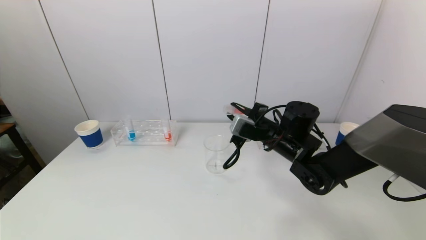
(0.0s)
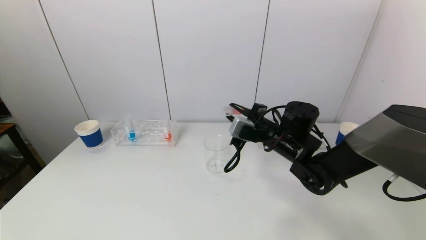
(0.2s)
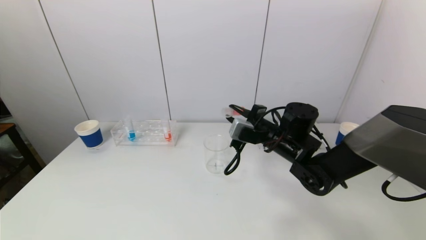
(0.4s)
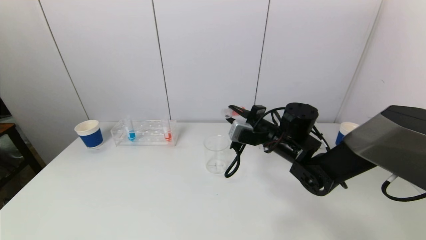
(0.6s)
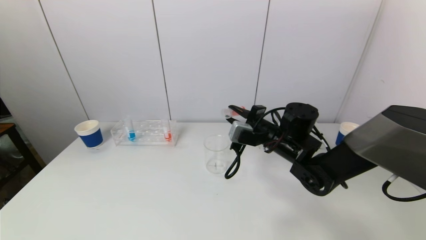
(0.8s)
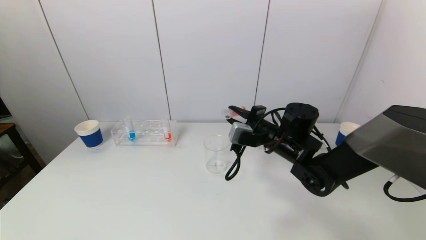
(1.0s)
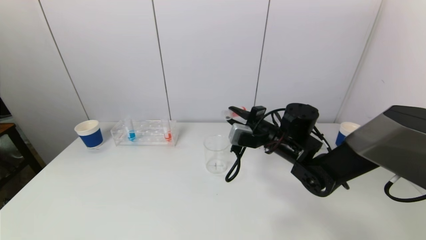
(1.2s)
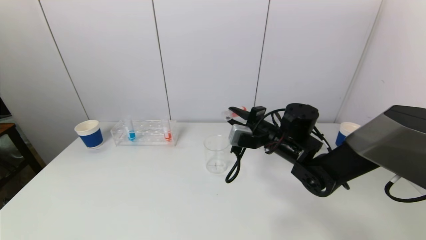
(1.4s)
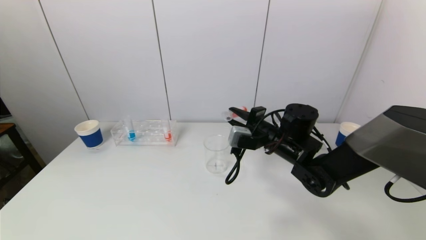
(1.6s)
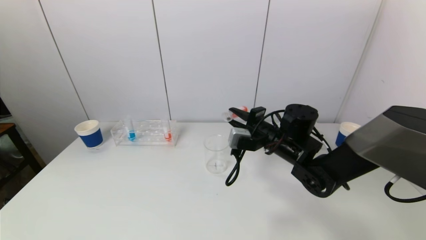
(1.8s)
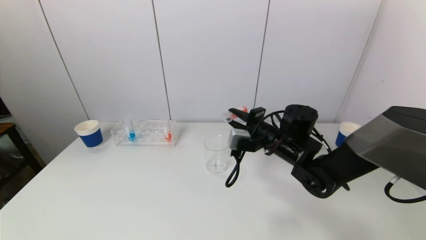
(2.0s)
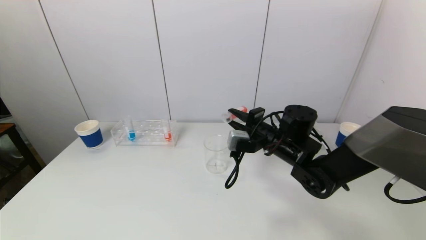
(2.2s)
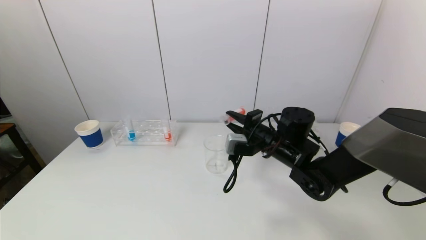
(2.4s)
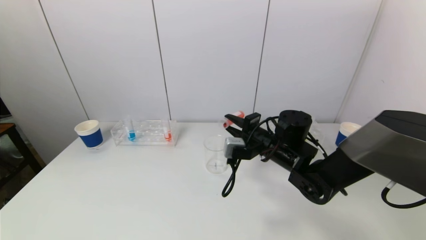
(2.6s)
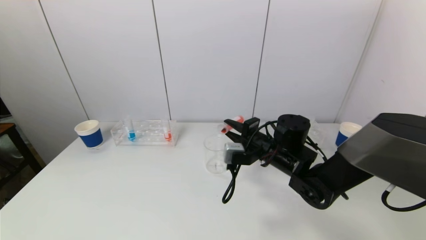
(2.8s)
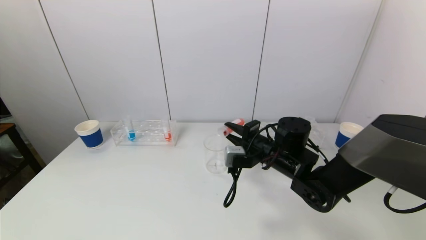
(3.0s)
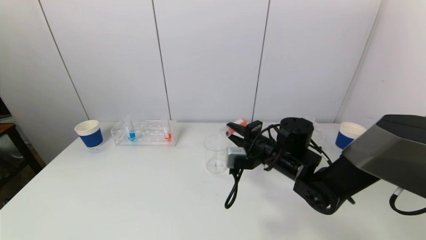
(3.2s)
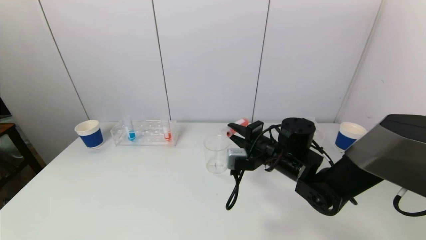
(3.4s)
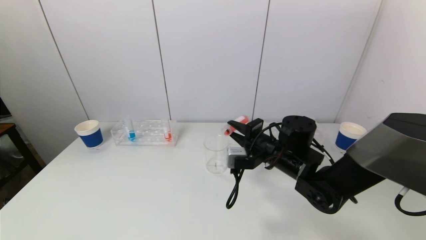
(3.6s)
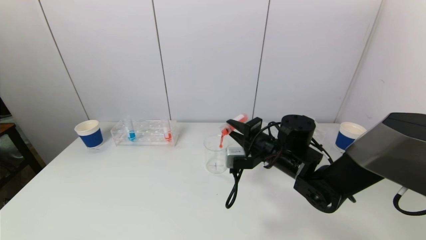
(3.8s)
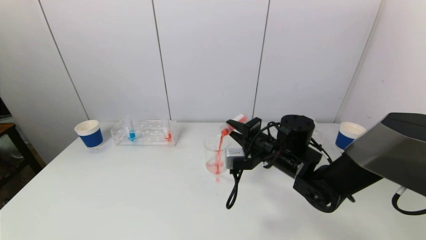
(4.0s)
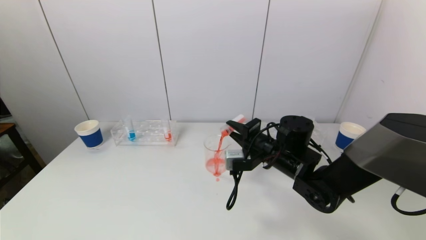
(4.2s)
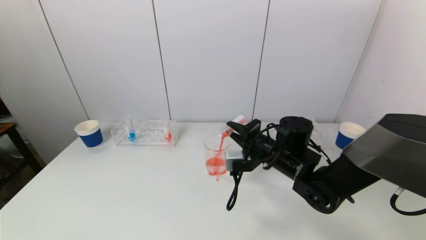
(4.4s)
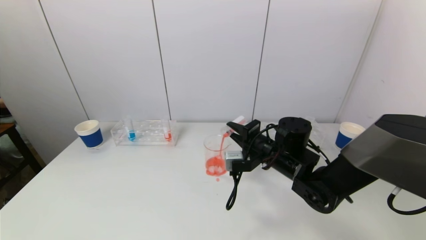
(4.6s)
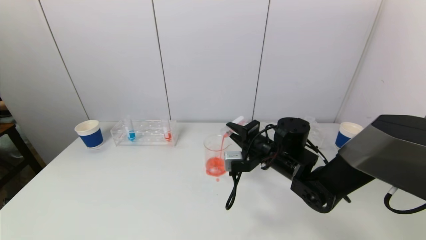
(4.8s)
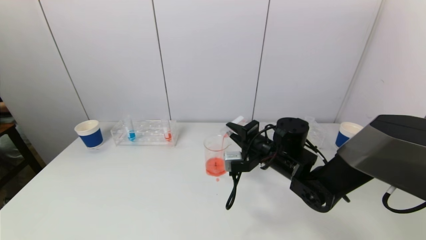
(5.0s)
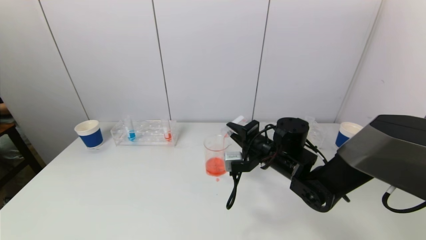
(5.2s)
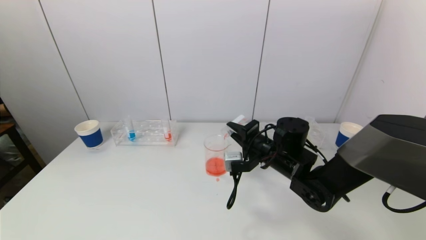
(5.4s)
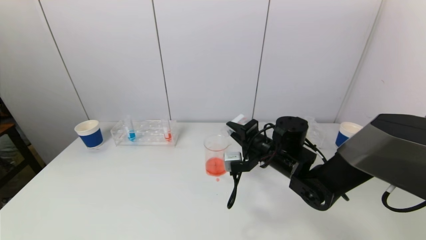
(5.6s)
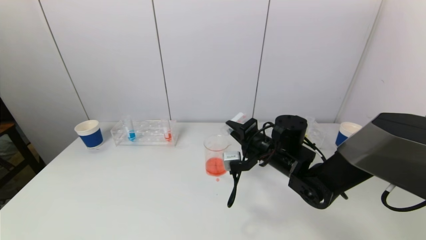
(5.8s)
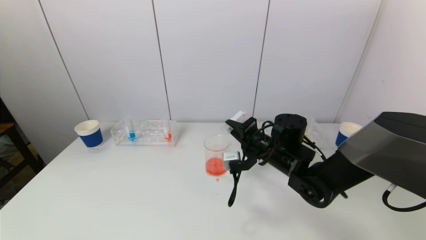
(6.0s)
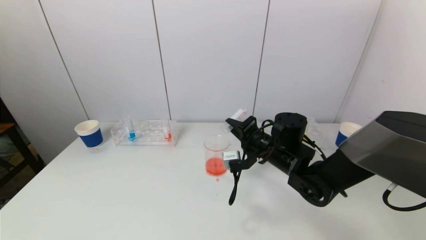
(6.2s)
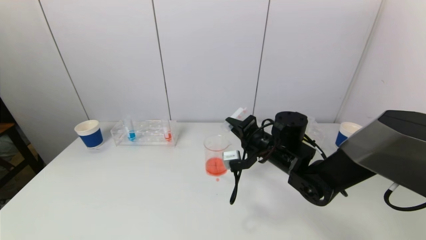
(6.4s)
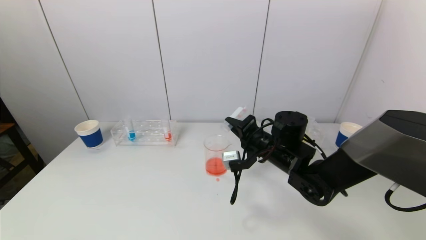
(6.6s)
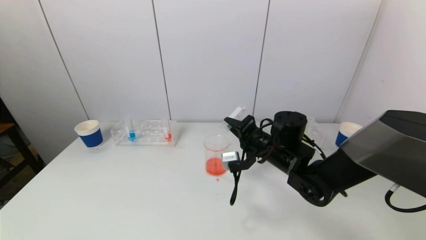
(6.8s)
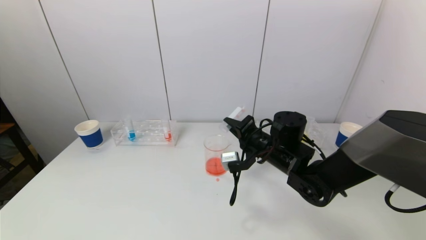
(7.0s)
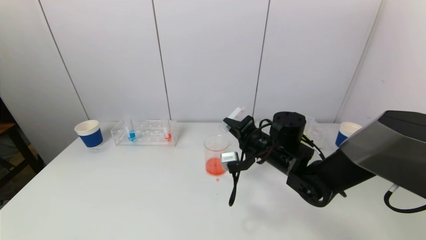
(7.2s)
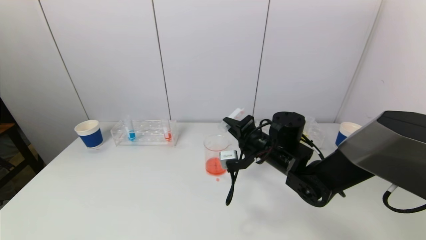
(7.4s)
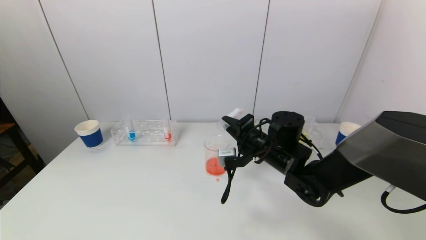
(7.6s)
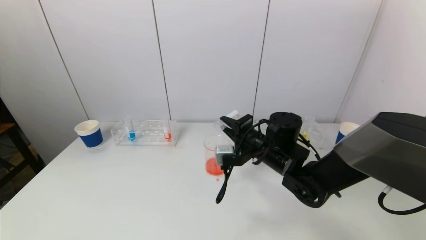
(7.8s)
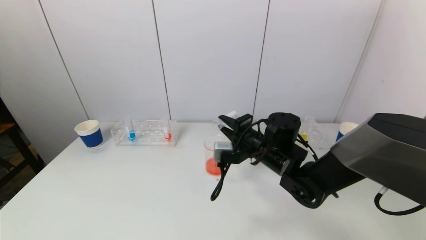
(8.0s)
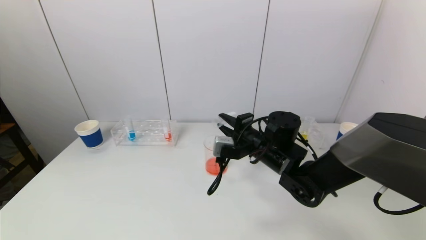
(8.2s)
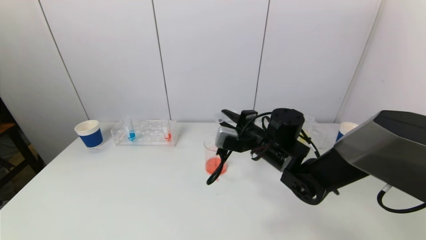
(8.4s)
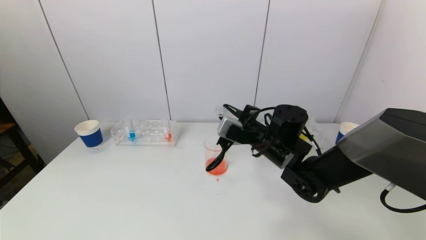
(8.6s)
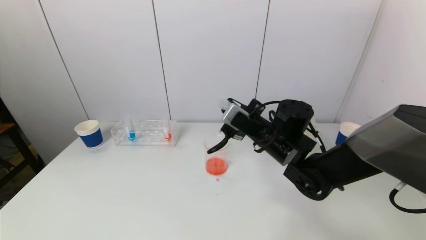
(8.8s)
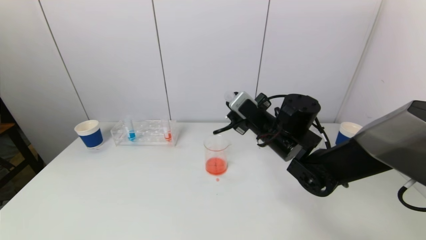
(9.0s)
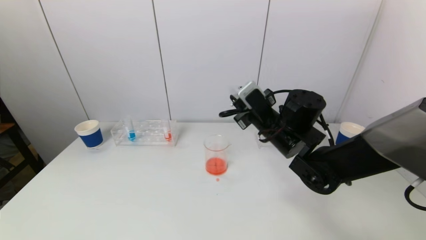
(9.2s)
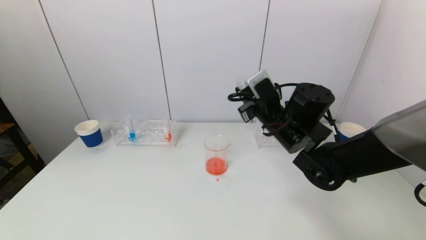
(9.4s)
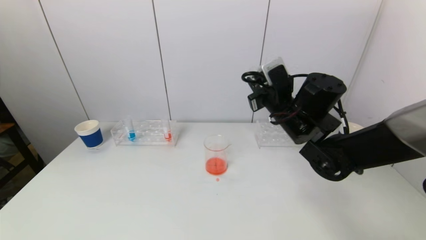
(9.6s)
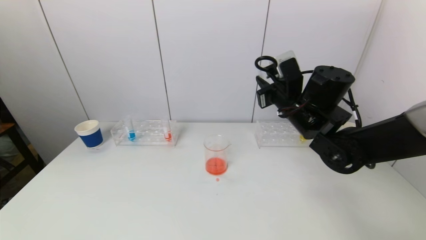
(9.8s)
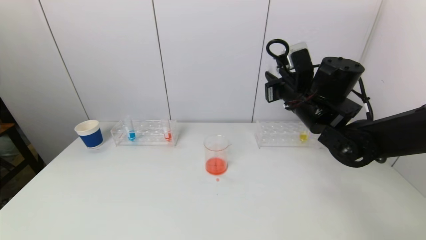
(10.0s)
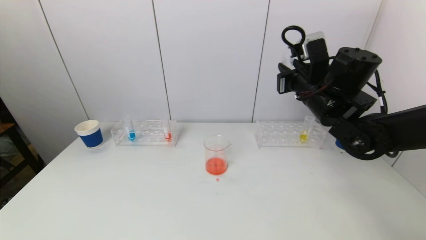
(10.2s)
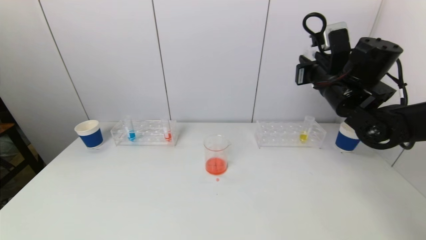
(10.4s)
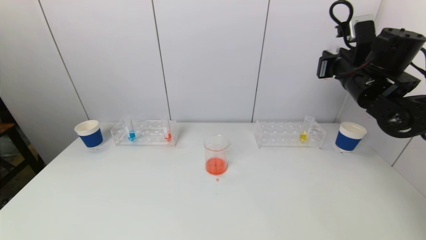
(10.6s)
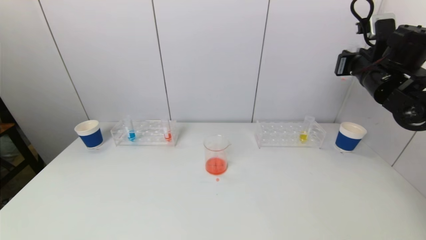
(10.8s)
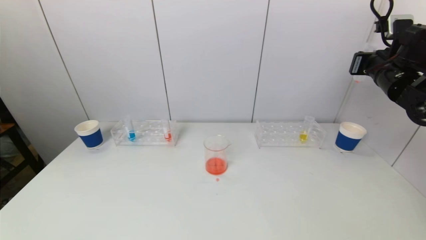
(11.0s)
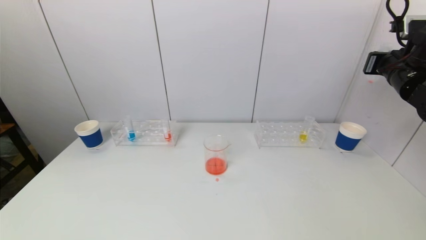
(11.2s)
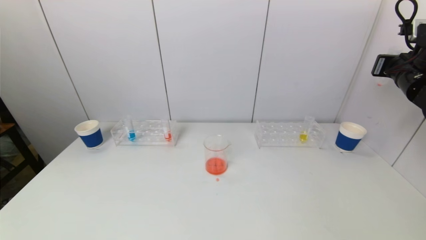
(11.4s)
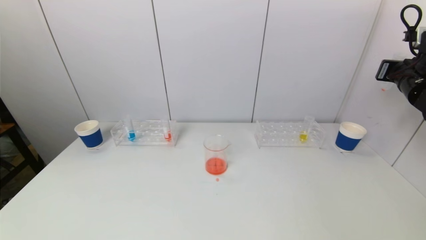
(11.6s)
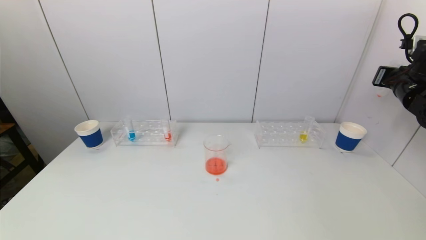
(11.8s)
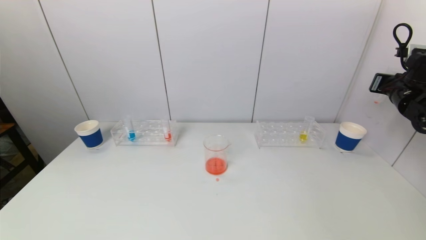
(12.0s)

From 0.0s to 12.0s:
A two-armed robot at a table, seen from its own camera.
Task of the whole recording: pick up a test tube with pigment on left test tube rack and a test tube with pigment on right test tube rack by grippers and pour them into the beaker.
Step, from 0.0s to 7.6s: Pour the red reagent into the graduated cylinder with the right gripper.
From 0.0s to 3.0s: The grippers make only small movements.
From 3.0s to 4.4s: The grippers stay close to where they were, moving slightly.
From 4.4s to 7.6s: The grippers move only a little.
From 9.0s to 10.4s: The right gripper travels to the right and upward by some 15 cm.
From 10.4s to 12.0s: The right gripper is displaced to the right by about 20 cm.

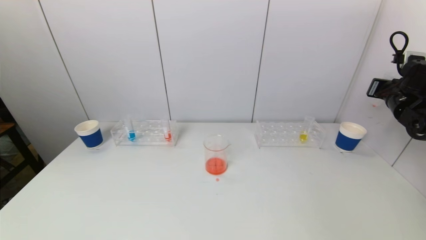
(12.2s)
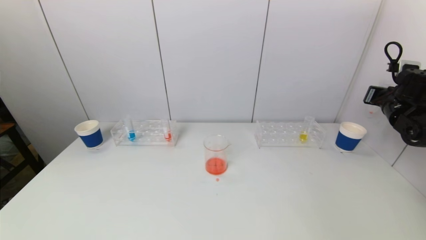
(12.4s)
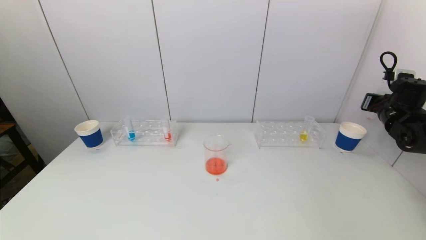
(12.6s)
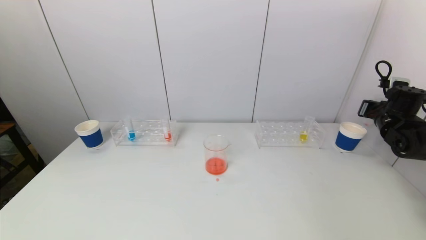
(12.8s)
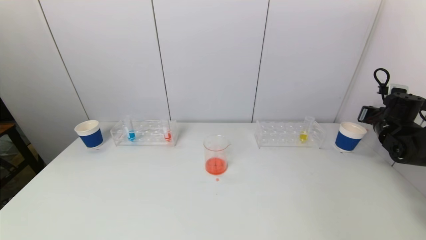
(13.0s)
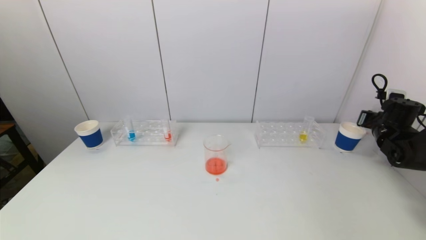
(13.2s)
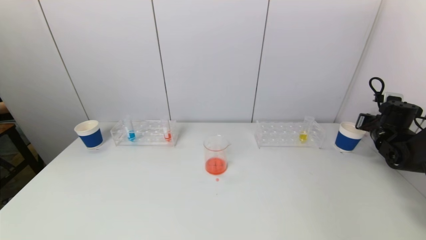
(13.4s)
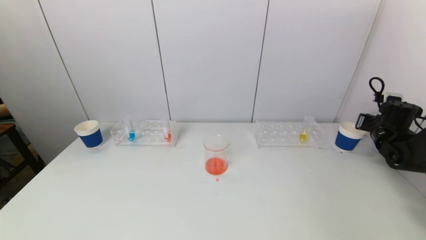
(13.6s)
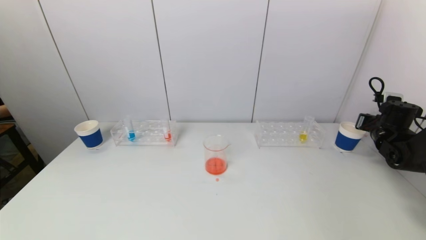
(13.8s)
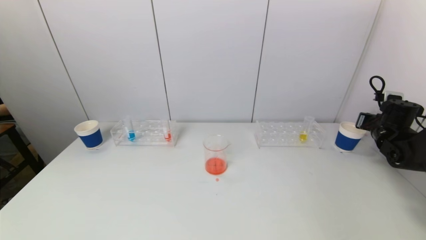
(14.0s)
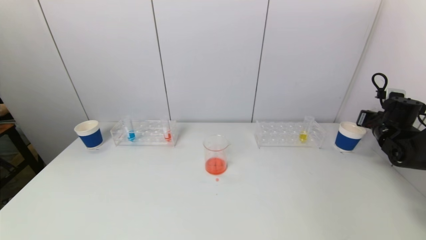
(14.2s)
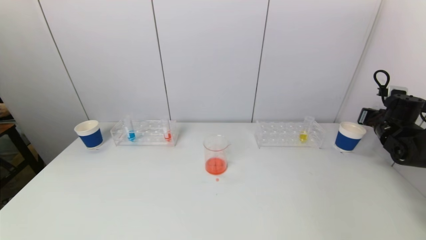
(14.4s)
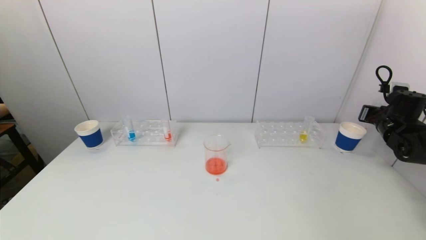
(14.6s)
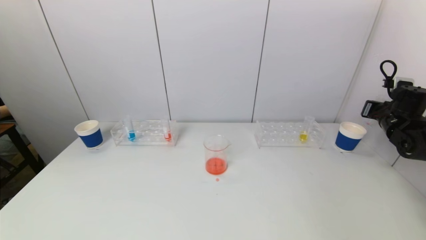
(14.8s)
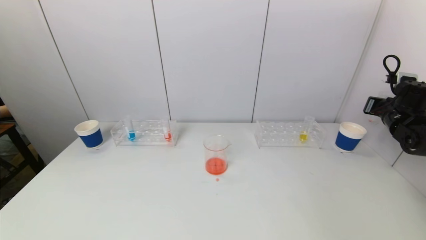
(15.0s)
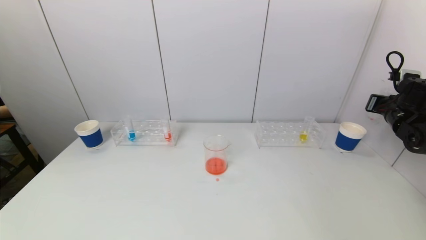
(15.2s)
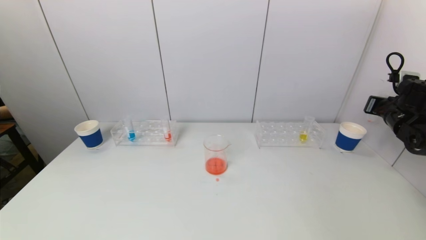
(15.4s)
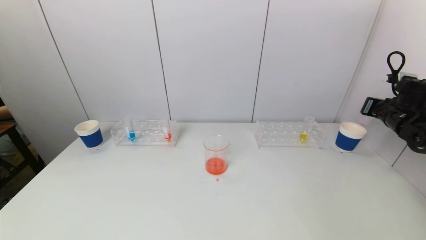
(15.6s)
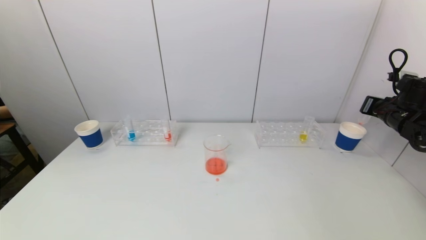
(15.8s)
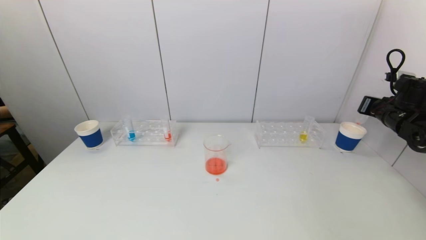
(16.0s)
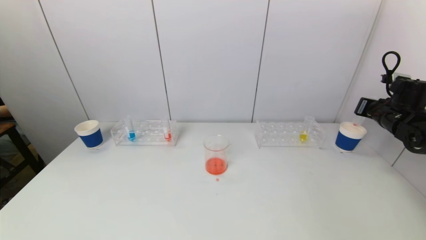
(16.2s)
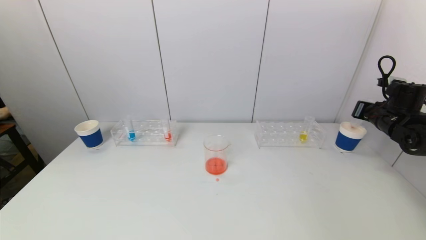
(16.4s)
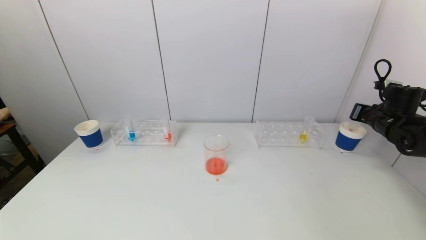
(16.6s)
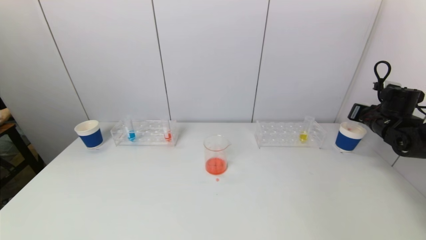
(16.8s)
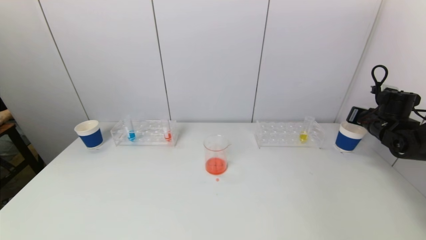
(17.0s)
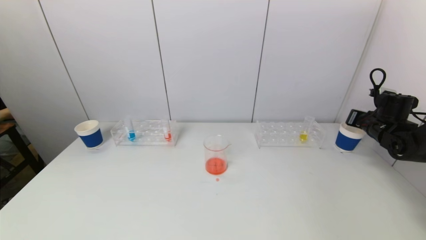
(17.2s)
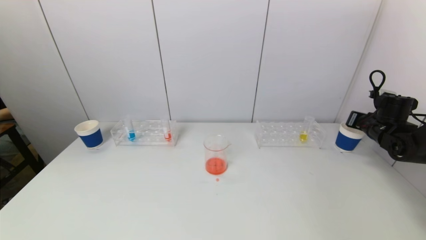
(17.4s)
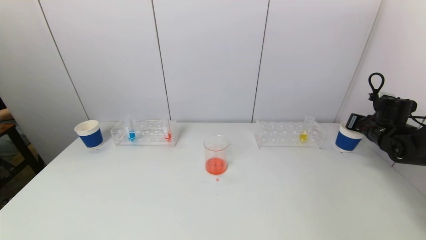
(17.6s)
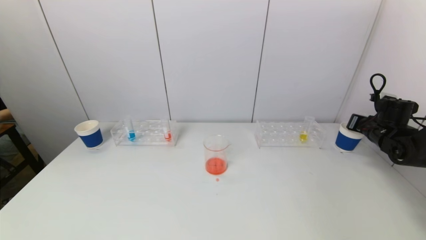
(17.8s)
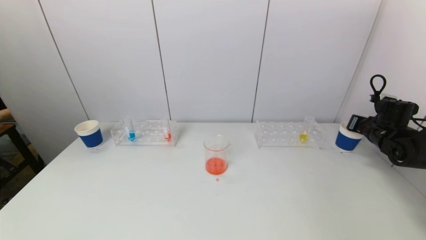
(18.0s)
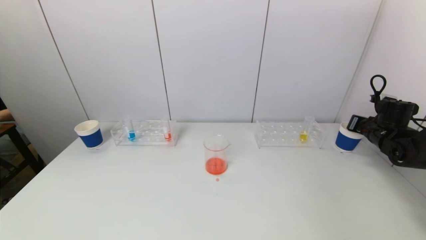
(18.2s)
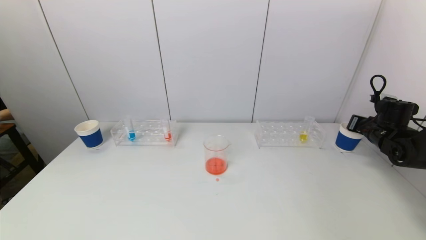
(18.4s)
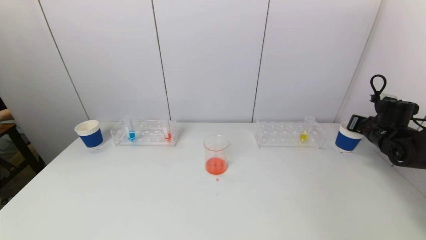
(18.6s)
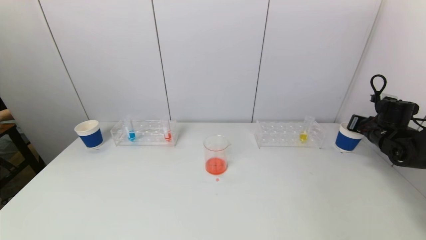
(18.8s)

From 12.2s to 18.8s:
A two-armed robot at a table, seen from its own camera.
Task of the whole recording: pick up a test tube with pigment on left test tube rack and a test tube with pigment on right test tube rack by grippers and pour them into the beaker.
From 12.2s to 13.8s: The right gripper is displaced downward by roughly 10 cm.
From 13.8s to 15.4s: The right gripper moves upward, some 5 cm.
From 15.4s to 18.8s: The grippers move only a little.
